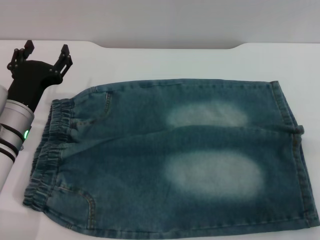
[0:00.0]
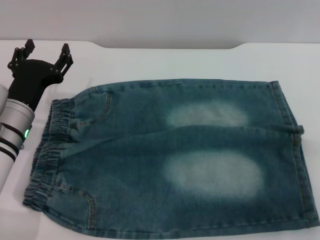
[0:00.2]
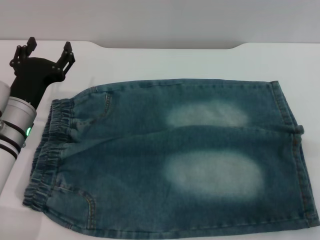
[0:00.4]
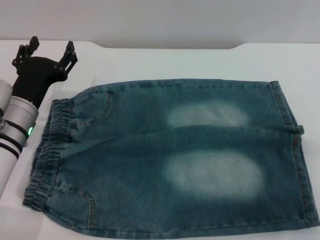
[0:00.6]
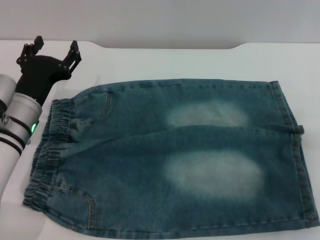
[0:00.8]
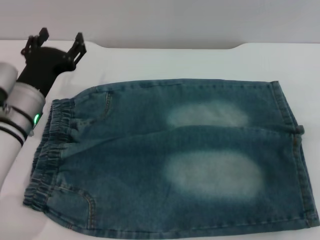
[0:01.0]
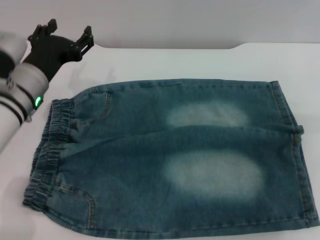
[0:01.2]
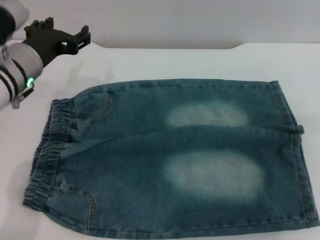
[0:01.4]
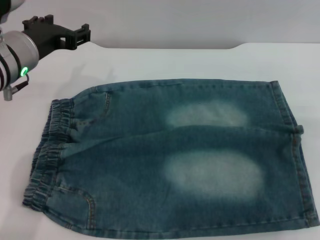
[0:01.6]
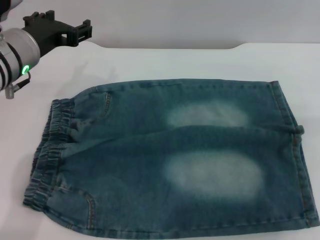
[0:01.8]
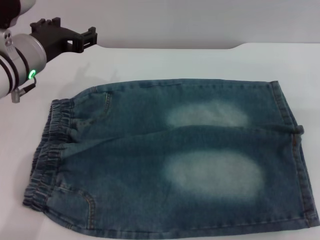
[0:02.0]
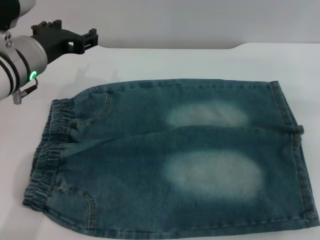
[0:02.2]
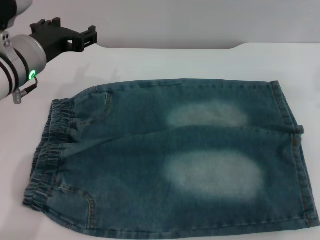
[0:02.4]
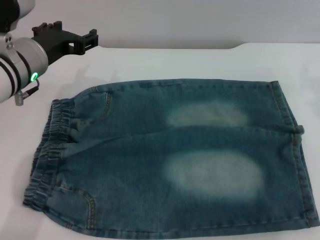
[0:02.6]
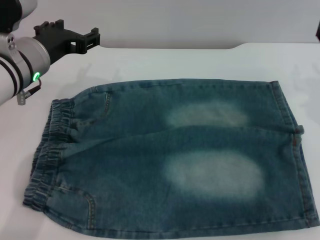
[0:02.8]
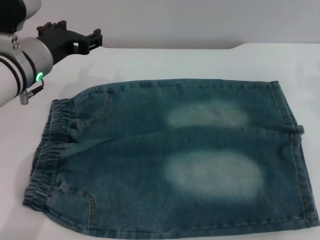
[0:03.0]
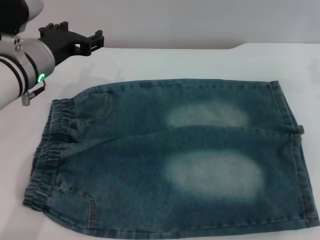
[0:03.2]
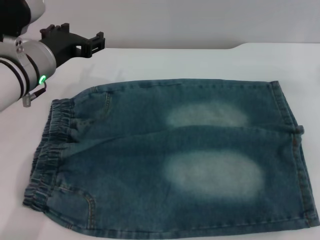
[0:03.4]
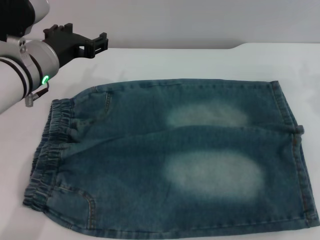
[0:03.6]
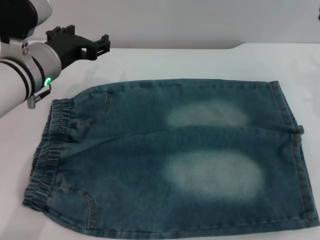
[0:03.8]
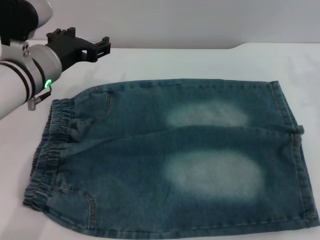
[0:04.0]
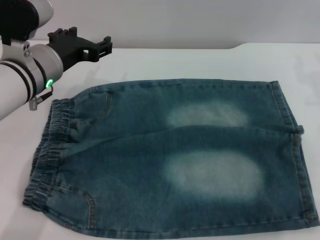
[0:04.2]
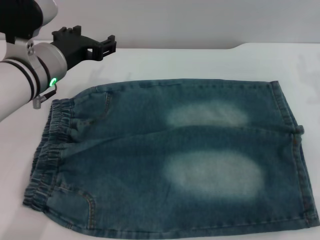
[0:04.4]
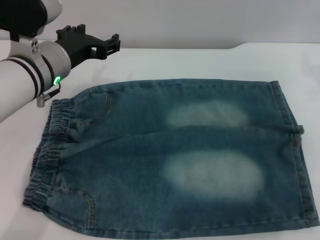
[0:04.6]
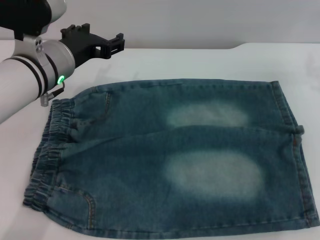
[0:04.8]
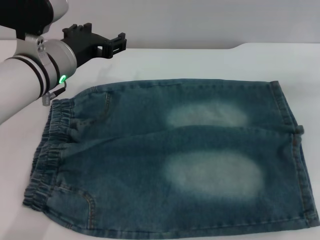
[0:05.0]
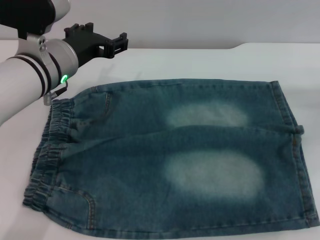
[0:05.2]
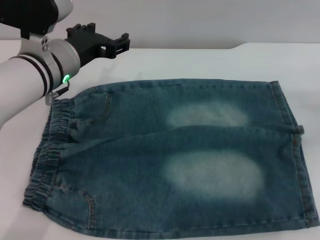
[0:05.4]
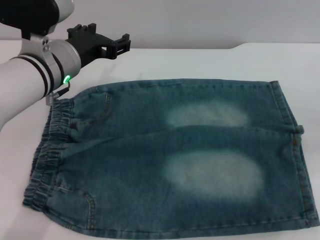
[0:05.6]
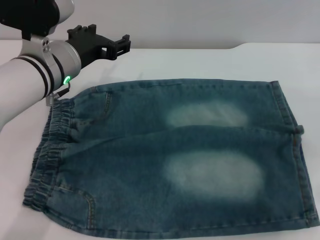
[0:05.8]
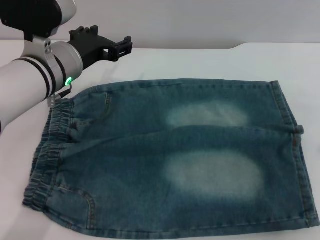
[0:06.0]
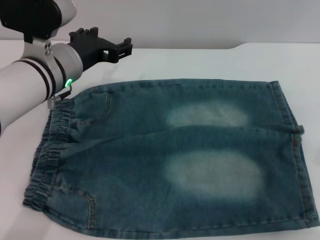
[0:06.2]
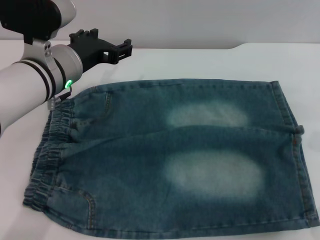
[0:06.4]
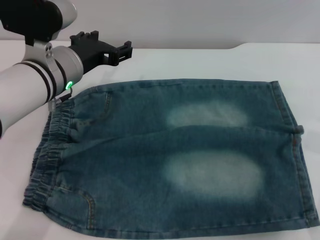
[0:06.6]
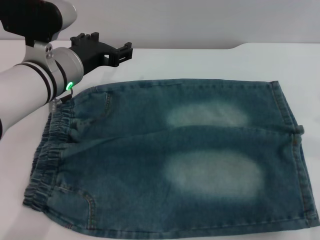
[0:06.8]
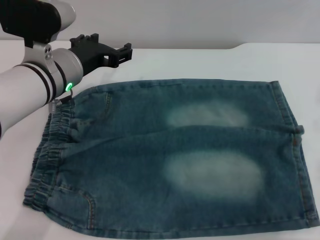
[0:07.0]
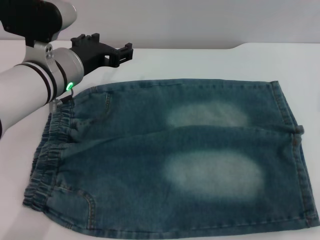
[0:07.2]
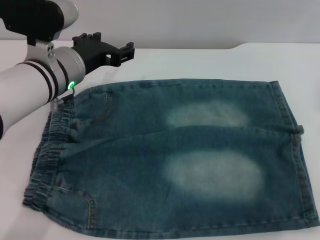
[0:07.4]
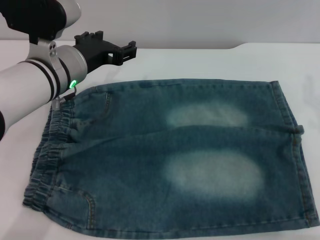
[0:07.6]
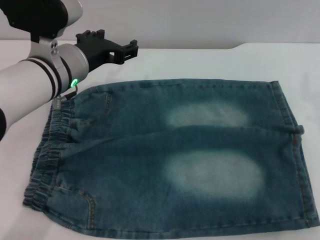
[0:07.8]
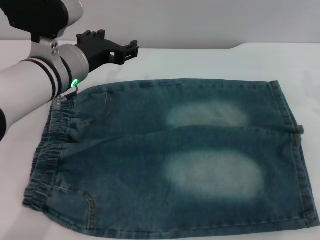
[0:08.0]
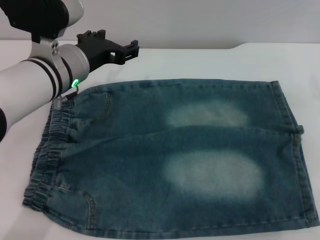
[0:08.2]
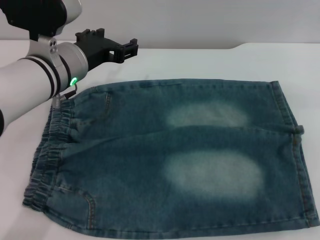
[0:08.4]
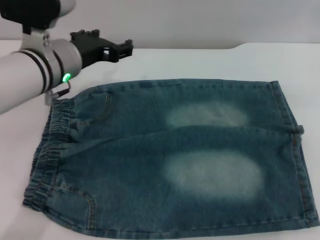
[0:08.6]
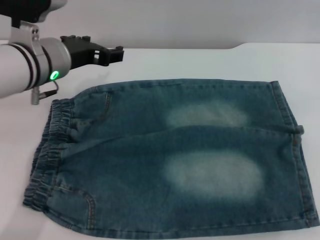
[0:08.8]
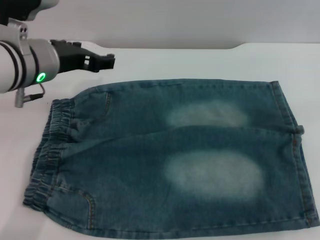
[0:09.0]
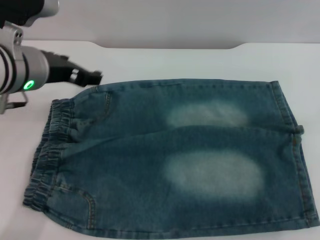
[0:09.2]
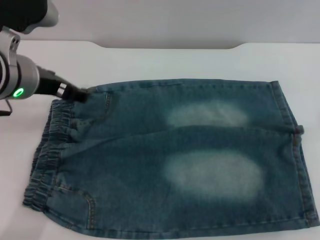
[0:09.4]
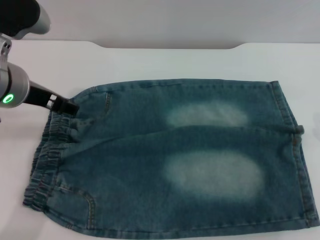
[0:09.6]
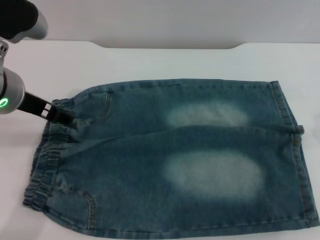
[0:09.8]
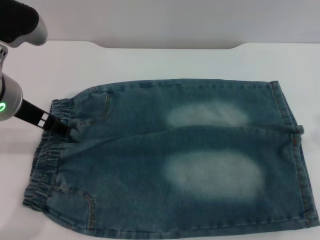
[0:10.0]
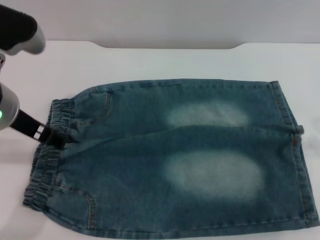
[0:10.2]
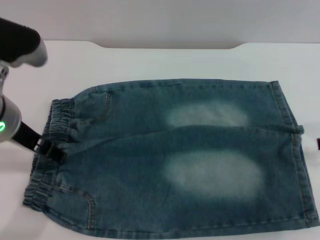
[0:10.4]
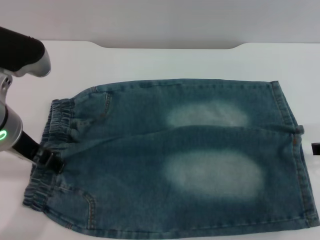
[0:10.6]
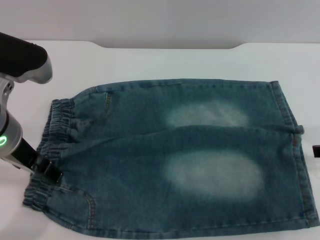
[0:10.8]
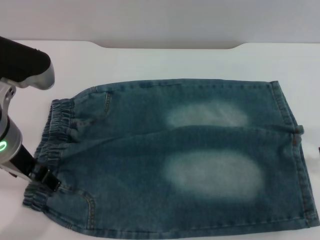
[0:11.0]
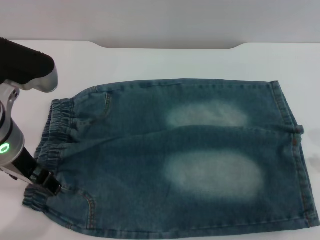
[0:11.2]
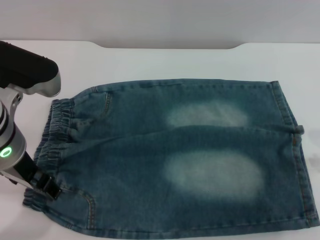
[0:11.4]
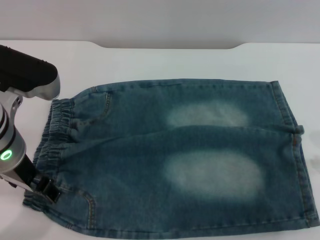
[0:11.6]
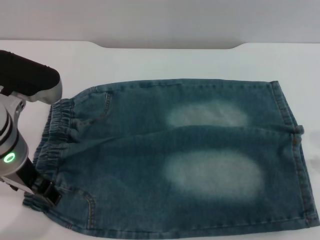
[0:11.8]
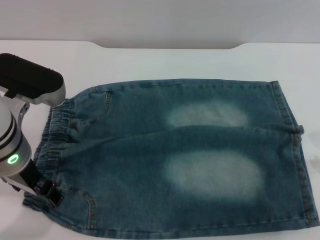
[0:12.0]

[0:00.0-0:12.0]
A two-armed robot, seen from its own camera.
0:00.0 to 0:01.6: The left gripper travels upward by approximately 10 cm.
0:04.4 to 0:06.0: The right gripper moves backward, about 5 cm.
0:07.6 to 0:09.0: The right gripper travels upward by some 15 cm.
0:09.0 to 0:10.4: The left gripper shifts by about 5 cm.
0:10.4 to 0:12.0: The grippers move only a little.

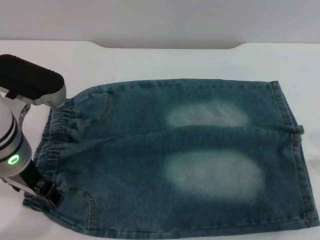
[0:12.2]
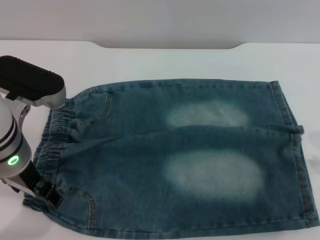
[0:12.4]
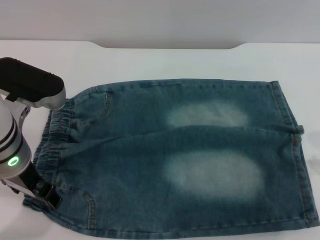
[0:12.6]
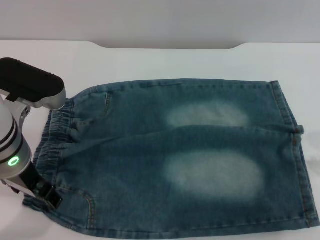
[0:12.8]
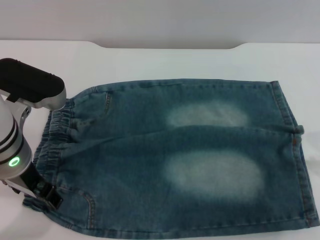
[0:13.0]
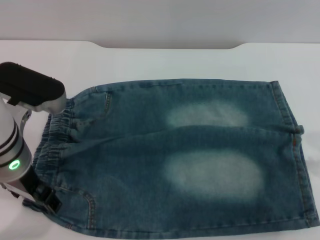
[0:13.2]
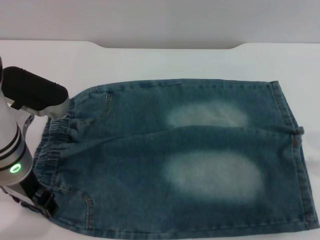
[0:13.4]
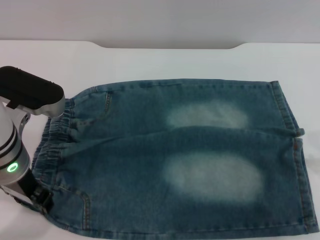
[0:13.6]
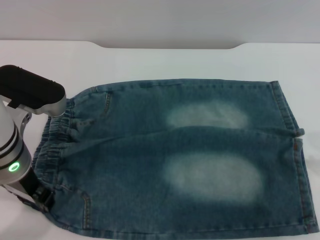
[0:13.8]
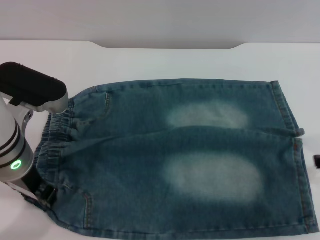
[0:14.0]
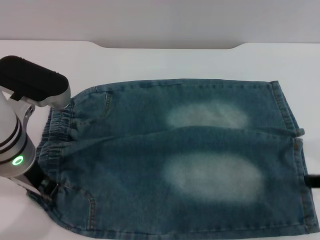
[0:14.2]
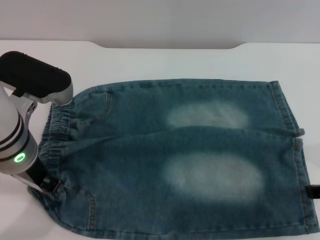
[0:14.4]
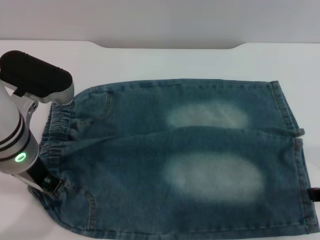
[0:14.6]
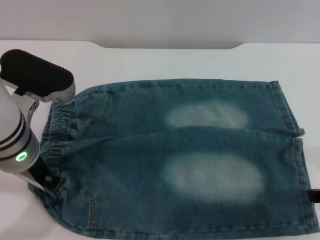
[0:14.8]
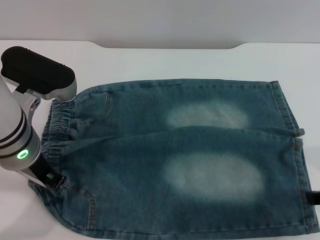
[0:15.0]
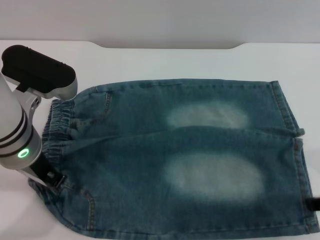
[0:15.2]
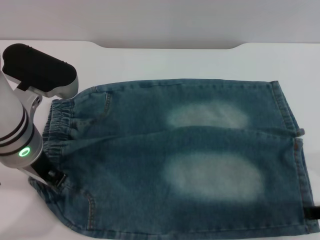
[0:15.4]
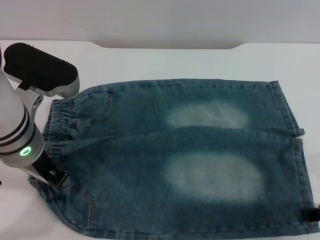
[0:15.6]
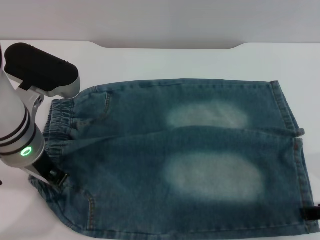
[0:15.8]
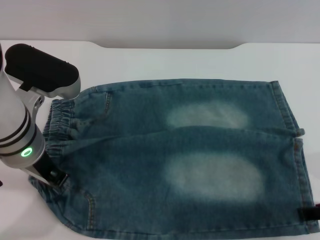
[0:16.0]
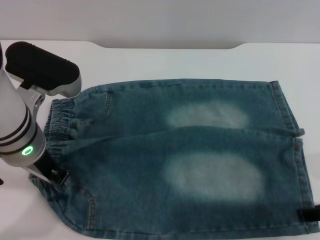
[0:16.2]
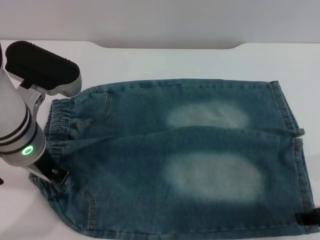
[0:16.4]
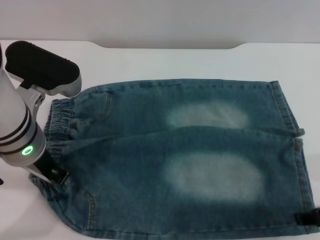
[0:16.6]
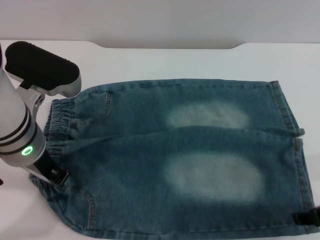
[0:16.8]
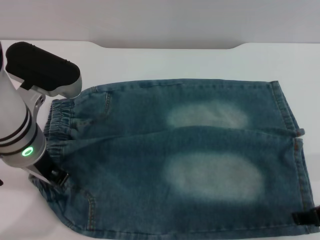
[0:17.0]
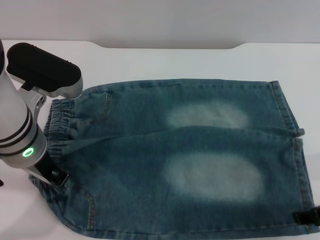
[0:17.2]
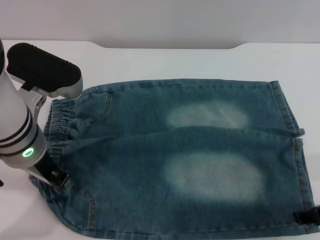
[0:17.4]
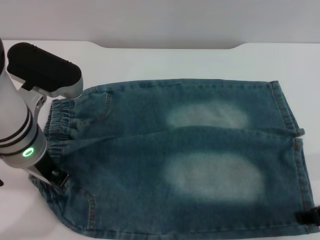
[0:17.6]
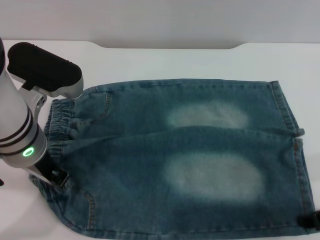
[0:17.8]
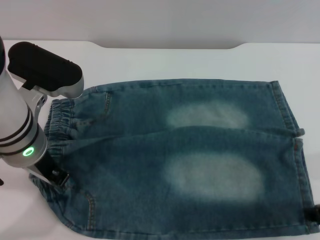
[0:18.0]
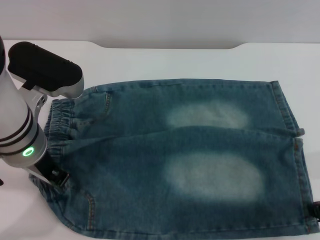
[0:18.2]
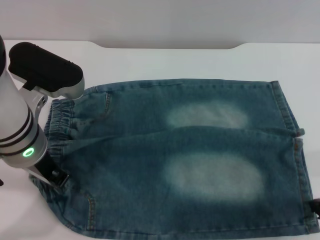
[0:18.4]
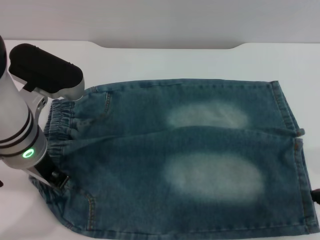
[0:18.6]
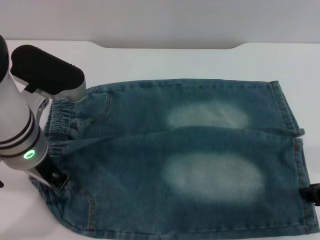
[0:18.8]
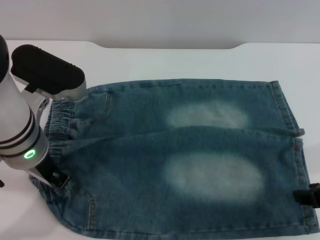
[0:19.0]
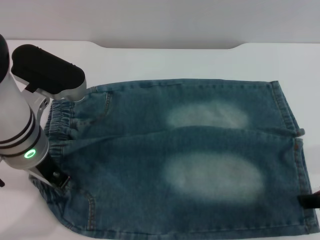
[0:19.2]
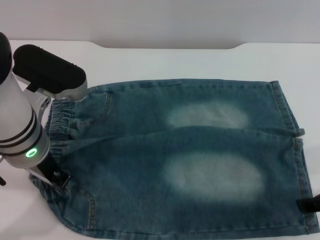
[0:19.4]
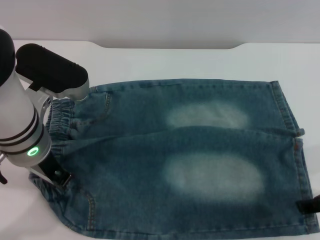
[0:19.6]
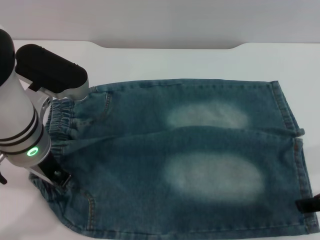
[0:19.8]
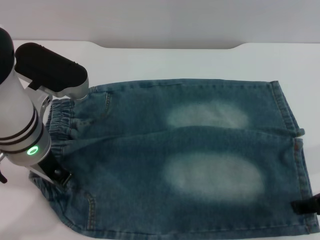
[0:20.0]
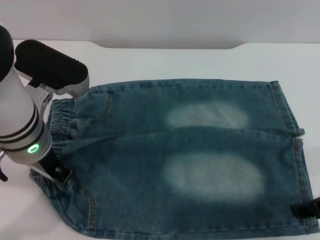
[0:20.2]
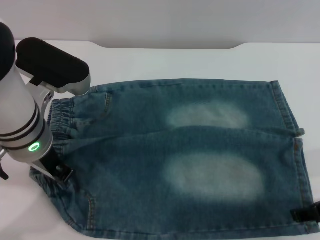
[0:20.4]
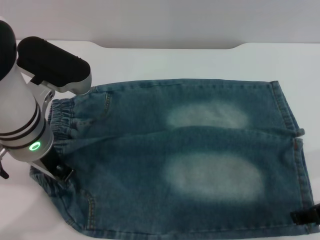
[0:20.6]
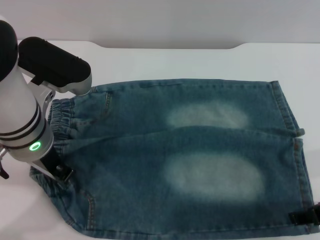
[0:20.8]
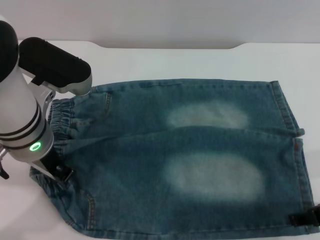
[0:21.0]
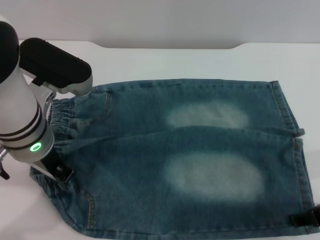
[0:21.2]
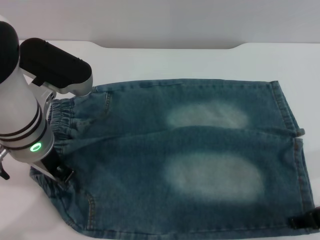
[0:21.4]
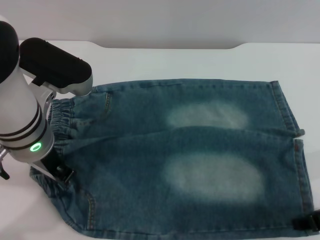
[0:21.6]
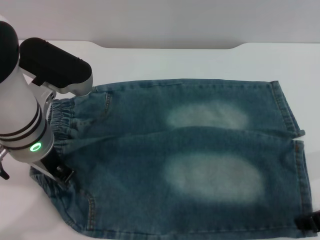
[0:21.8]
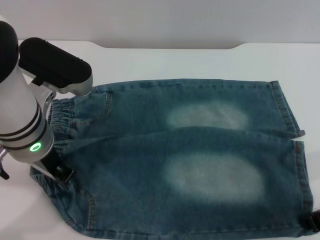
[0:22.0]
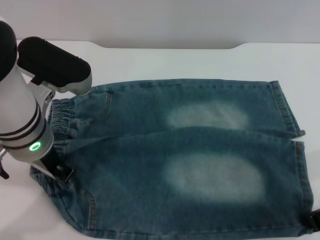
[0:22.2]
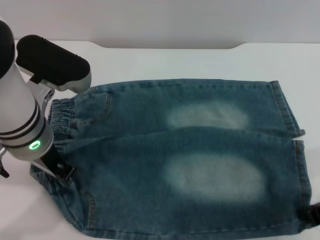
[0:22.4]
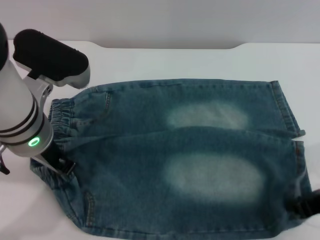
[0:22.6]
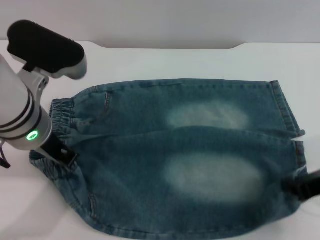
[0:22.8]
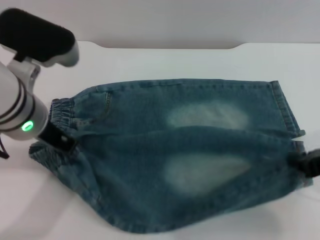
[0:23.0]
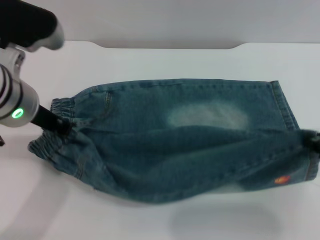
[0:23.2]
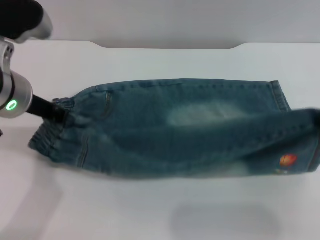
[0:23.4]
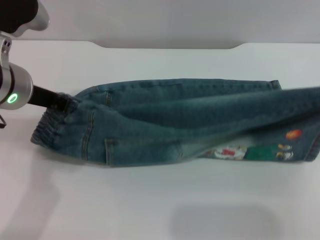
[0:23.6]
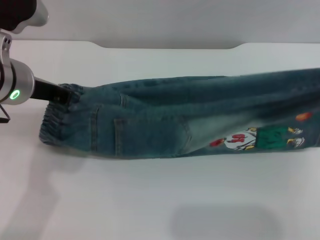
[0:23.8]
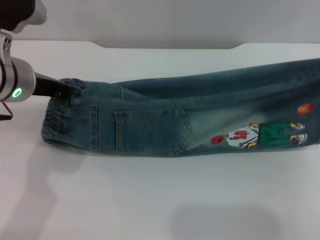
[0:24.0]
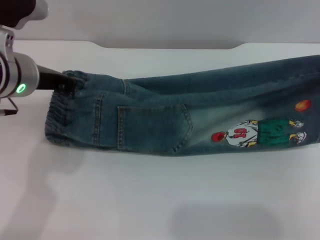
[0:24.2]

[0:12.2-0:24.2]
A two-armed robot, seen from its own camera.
0:12.2 to 0:13.8: There are only small adjustments of the grippers.
0:13.8 to 0:15.2: The left gripper closes its fingers.
0:15.2 to 0:16.6: The grippers stay close to where they were, moving slightly.
0:19.8 to 0:21.2: The grippers stay close to where they were, moving slightly.
0:21.2 to 0:22.6: The right gripper closes its fingers.
0:22.6 to 0:24.2: The left gripper ends up some 5 cm from where it was. Meanwhile the right gripper shifts about 5 cm forward.
